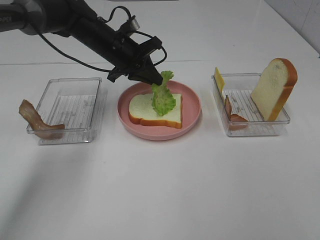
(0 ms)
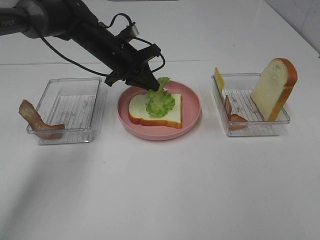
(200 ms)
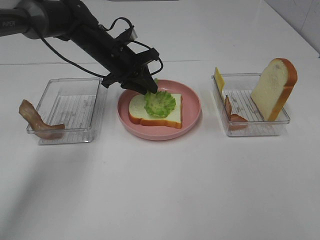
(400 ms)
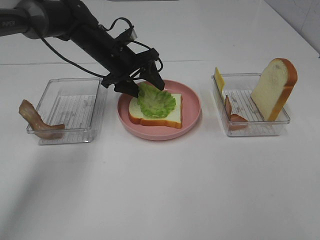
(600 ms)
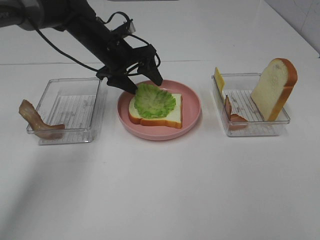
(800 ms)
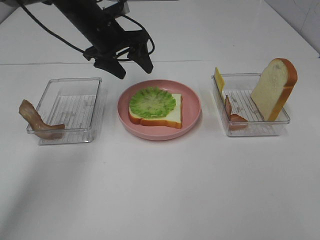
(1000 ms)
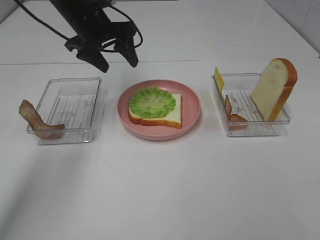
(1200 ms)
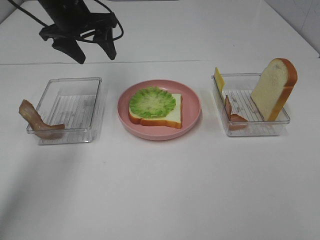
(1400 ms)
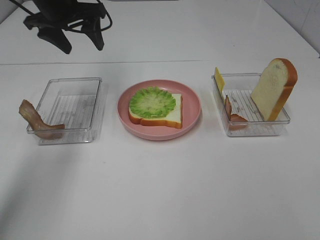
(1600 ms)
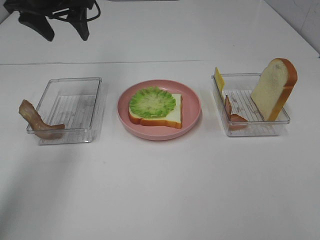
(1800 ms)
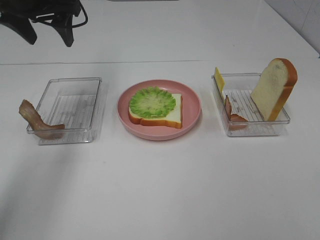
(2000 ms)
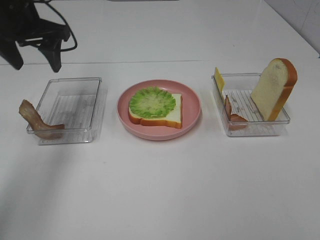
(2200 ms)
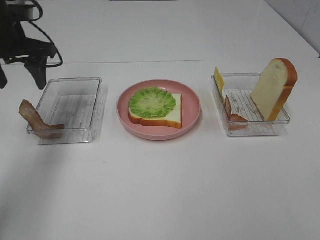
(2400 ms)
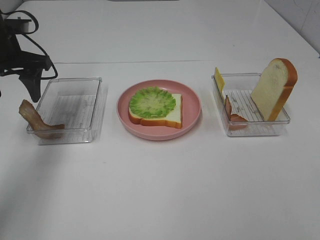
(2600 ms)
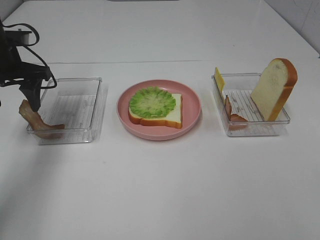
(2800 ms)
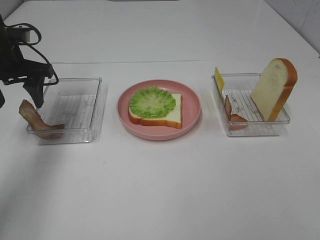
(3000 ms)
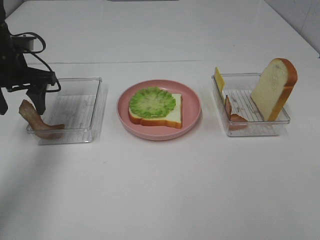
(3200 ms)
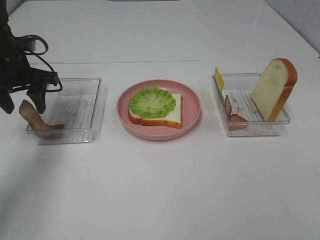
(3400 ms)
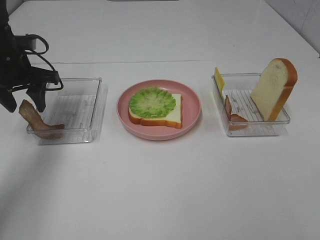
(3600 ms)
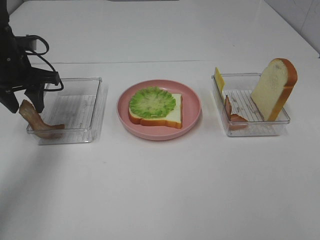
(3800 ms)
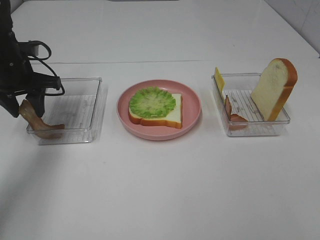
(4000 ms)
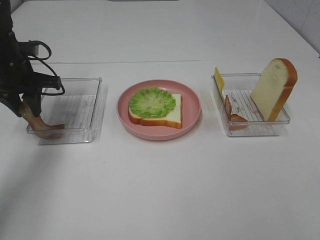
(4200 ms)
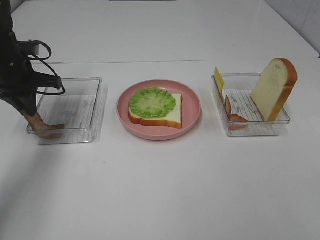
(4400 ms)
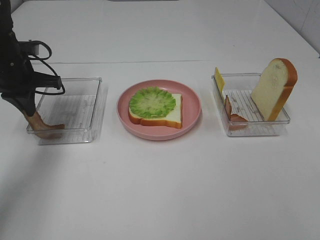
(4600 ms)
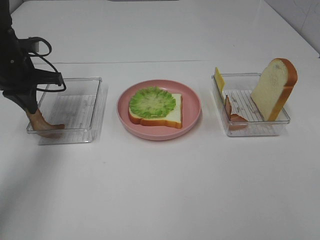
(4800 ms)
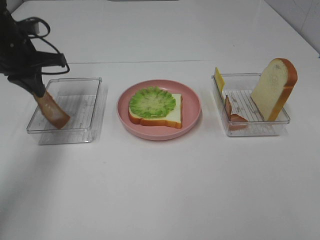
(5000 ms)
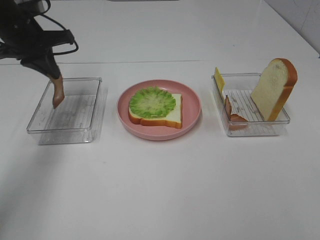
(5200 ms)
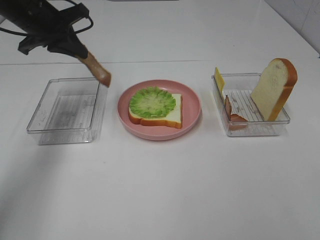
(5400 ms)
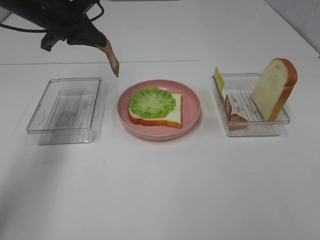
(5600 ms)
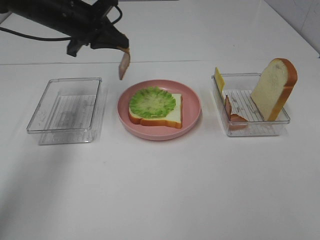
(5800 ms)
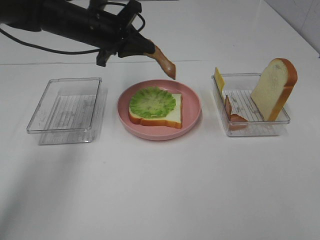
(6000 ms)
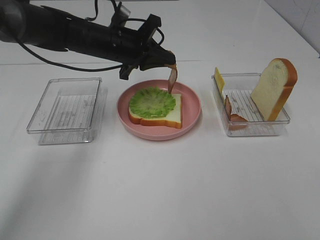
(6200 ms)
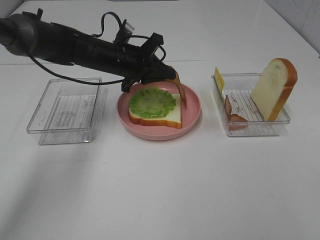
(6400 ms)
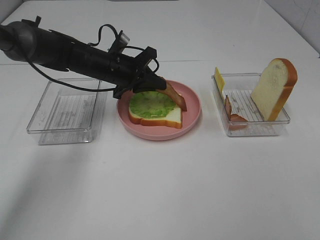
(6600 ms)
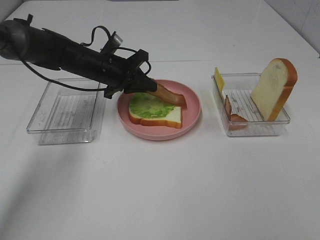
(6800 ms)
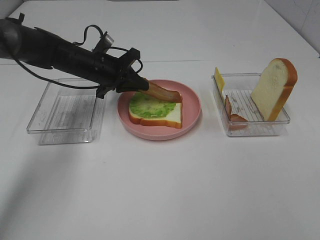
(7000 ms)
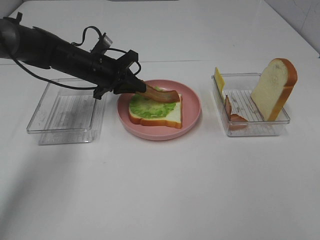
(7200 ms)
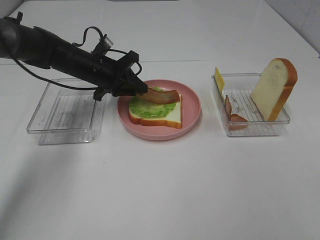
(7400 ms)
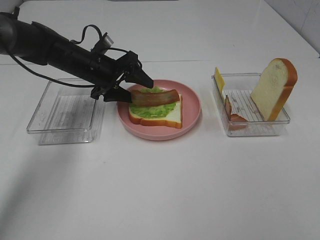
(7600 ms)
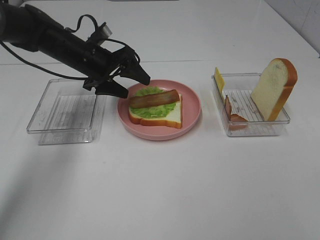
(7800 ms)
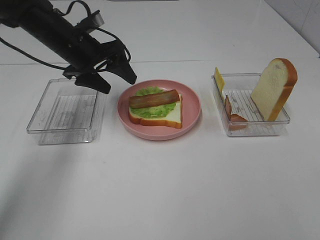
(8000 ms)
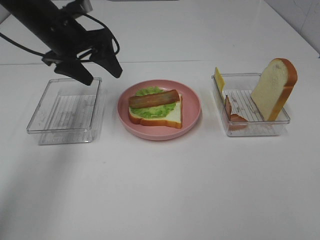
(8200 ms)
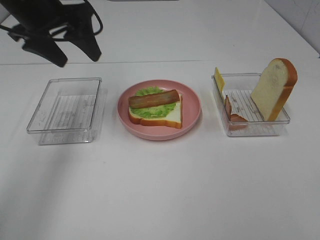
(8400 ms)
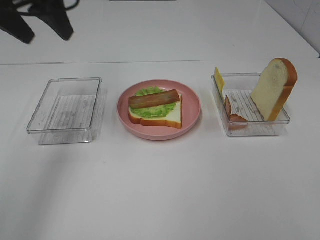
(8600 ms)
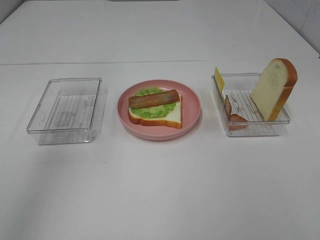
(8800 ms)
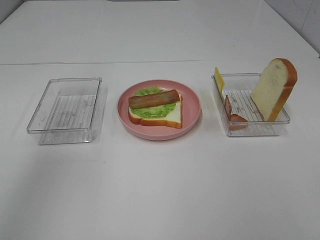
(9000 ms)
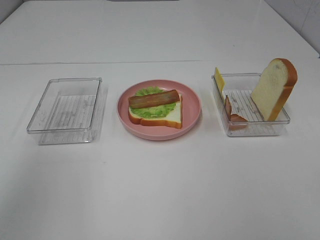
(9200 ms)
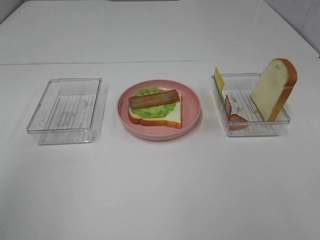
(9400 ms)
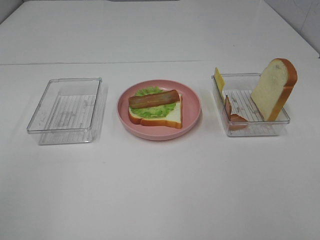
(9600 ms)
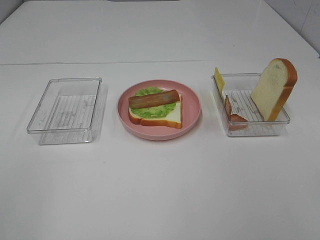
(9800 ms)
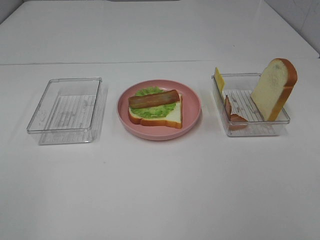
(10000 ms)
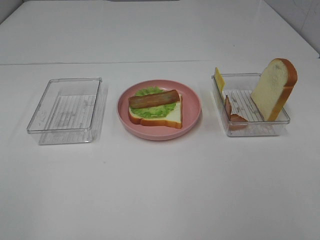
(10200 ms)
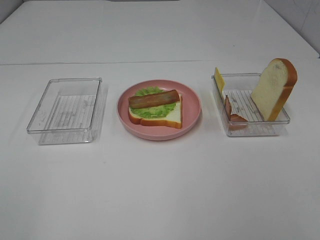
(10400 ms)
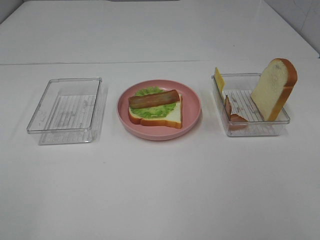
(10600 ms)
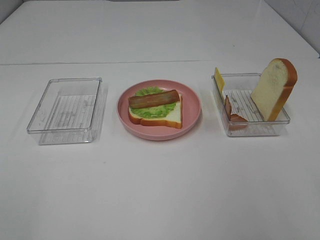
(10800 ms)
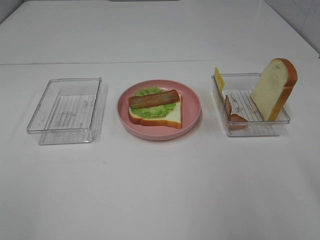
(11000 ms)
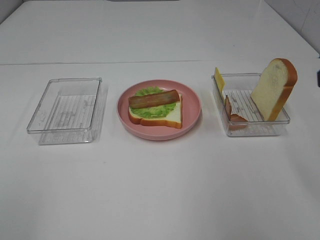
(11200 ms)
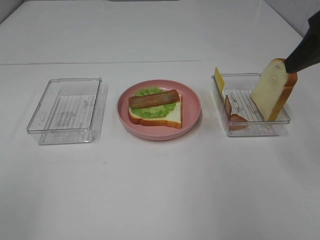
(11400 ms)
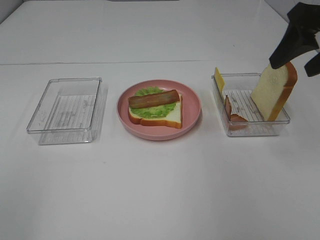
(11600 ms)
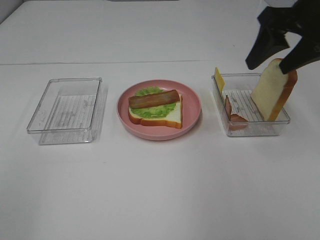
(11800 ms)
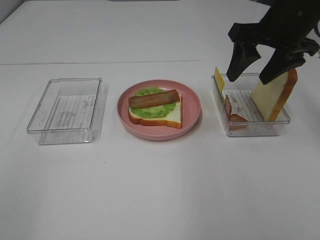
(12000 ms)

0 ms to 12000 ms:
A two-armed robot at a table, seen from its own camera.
Task of the whole recording: Make sandwiches.
Step, 1400 ms to 4400 ms: Left hand:grab the bacon.
Step, 4600 ms to 8000 ms: Left hand:place bacon on lettuce slice.
0 ms to 1600 ms: The left gripper travels upward and to the left by some 15 cm, and opens.
1600 ms to 3000 ms: The left gripper heads to the left, downward and backward, covering roughly 15 cm.
3000 ms to 4400 ms: The left gripper closes its fingers.
4400 ms to 6000 ms: The left gripper moves to the right, about 15 cm.
6000 ms to 7600 ms: The left gripper travels downward by roughly 10 cm, and opens up.
7600 ms to 9000 ms: The left gripper heads upward and backward, covering some 40 cm.
9000 ms to 10400 ms: The left gripper is displaced backward and downward by some 25 cm.
10400 ms to 12000 ms: The right gripper goes roughly 35 cm forward.

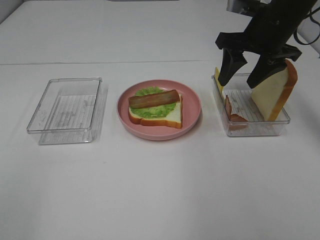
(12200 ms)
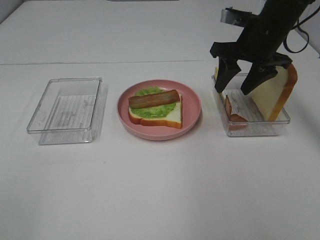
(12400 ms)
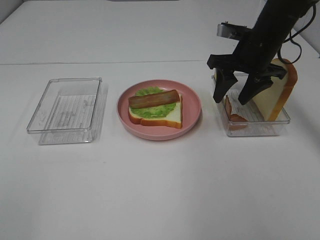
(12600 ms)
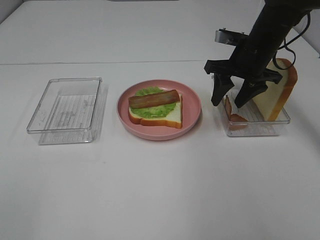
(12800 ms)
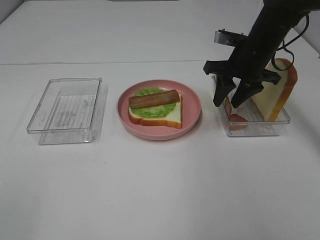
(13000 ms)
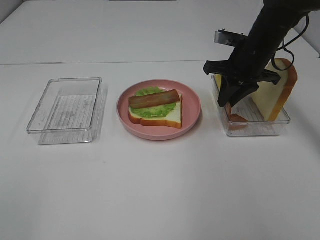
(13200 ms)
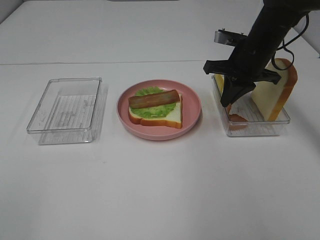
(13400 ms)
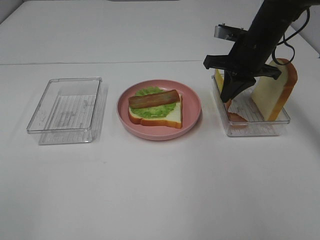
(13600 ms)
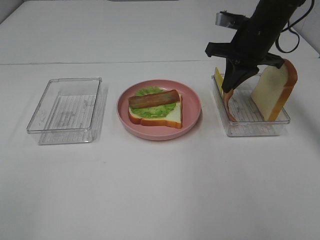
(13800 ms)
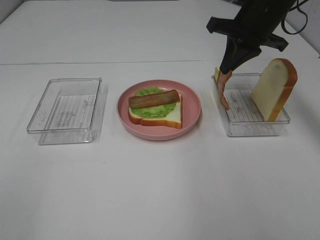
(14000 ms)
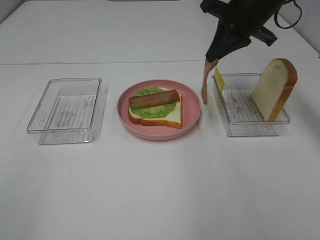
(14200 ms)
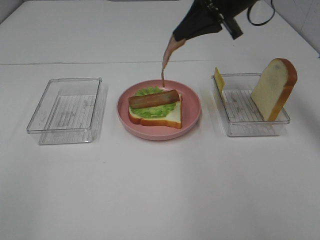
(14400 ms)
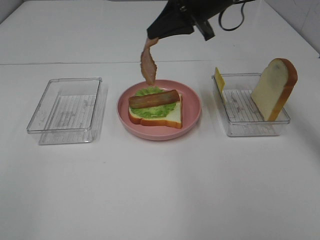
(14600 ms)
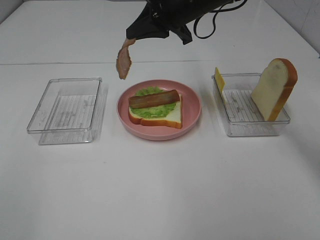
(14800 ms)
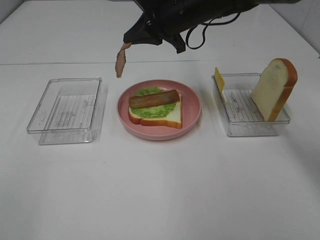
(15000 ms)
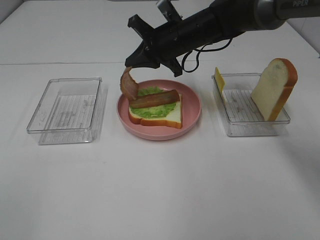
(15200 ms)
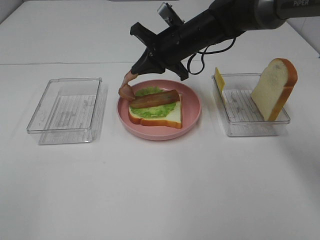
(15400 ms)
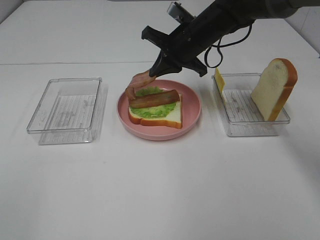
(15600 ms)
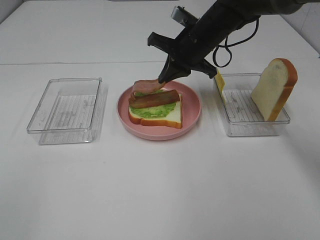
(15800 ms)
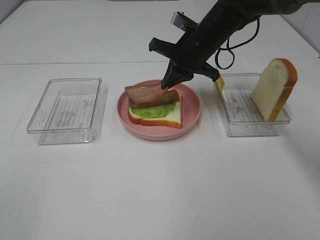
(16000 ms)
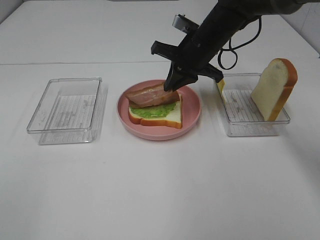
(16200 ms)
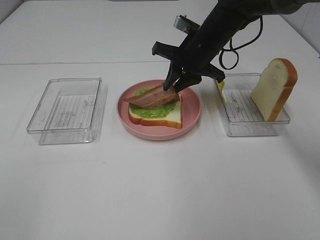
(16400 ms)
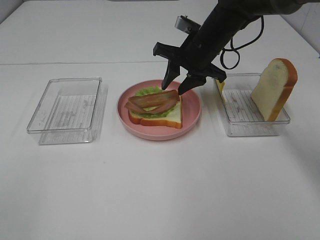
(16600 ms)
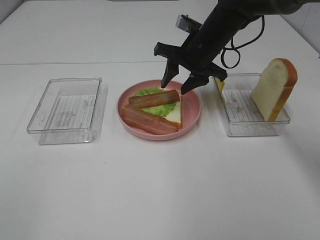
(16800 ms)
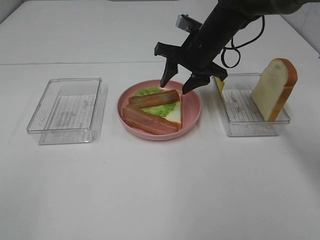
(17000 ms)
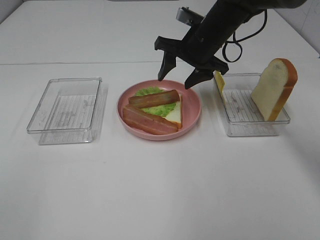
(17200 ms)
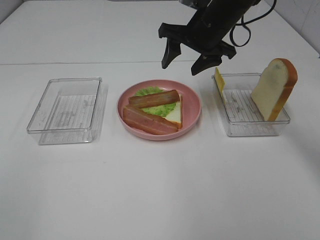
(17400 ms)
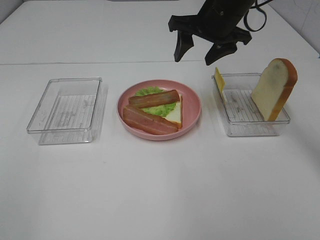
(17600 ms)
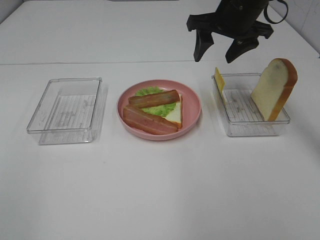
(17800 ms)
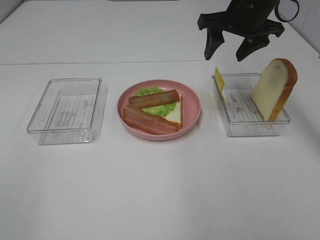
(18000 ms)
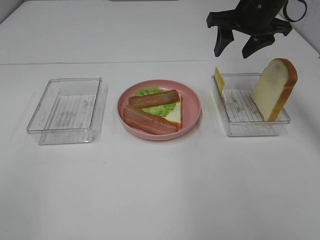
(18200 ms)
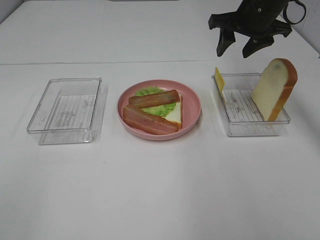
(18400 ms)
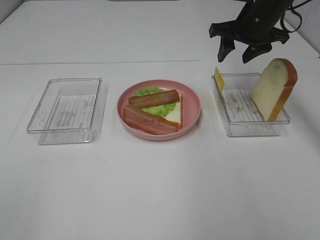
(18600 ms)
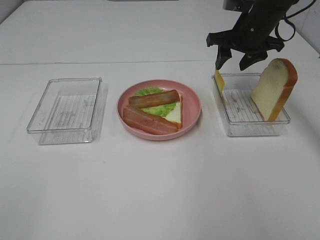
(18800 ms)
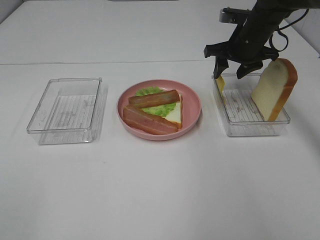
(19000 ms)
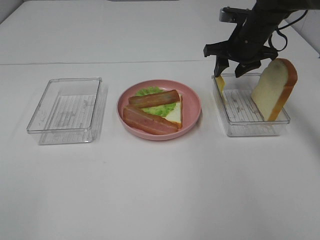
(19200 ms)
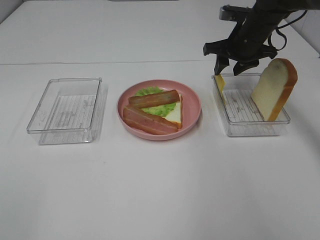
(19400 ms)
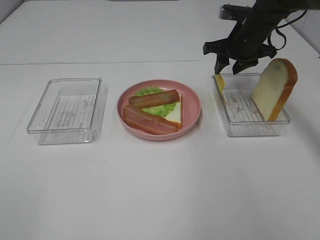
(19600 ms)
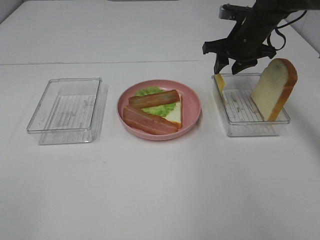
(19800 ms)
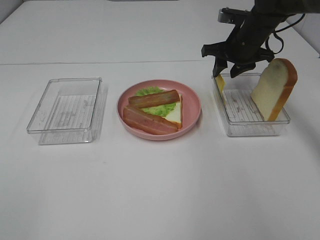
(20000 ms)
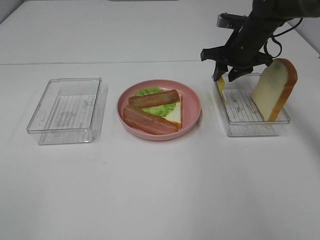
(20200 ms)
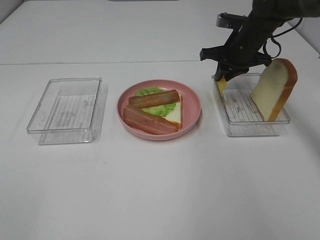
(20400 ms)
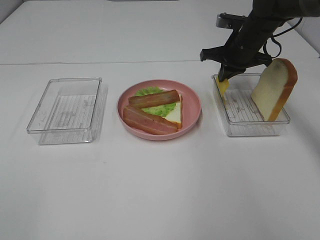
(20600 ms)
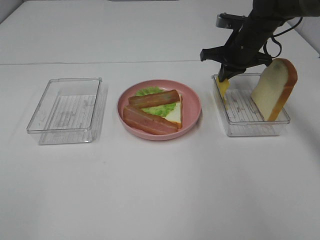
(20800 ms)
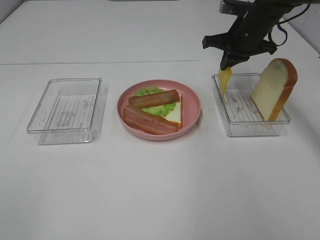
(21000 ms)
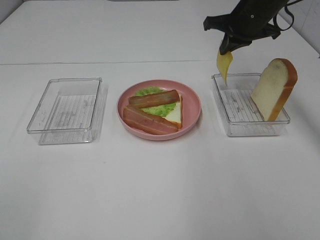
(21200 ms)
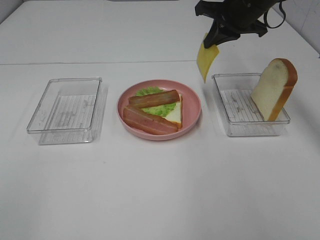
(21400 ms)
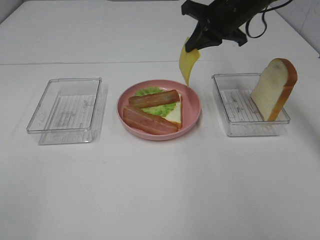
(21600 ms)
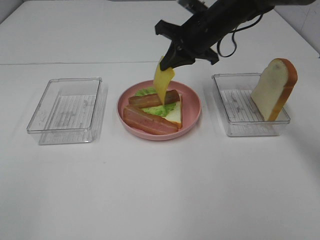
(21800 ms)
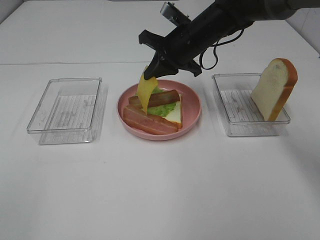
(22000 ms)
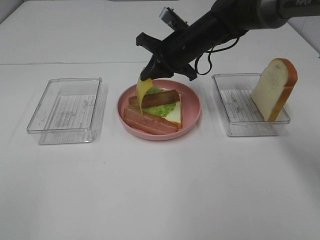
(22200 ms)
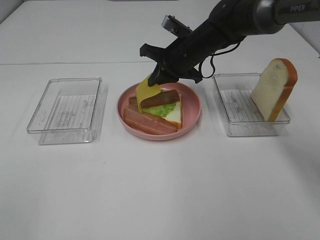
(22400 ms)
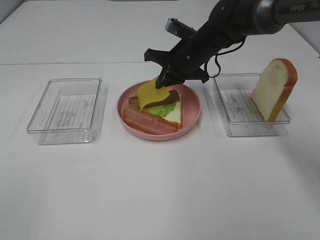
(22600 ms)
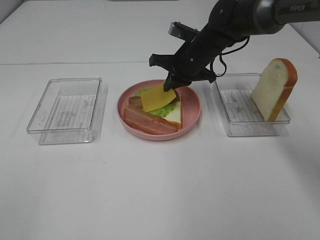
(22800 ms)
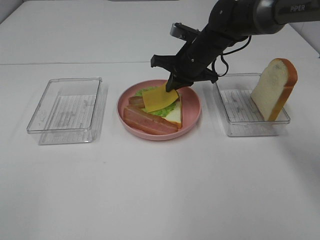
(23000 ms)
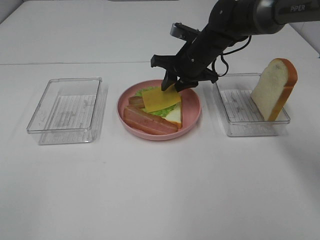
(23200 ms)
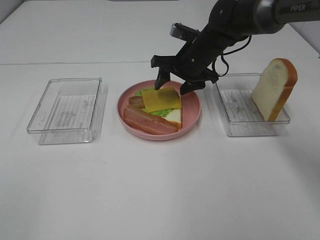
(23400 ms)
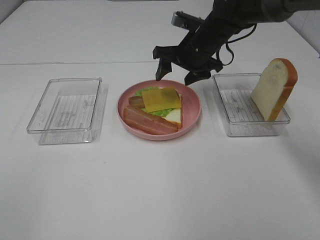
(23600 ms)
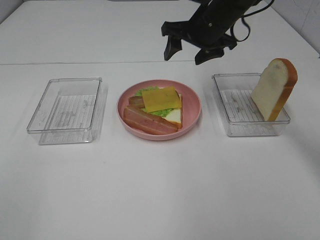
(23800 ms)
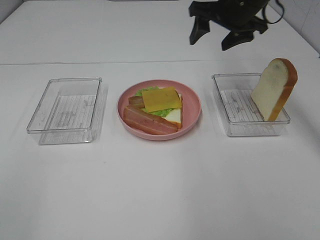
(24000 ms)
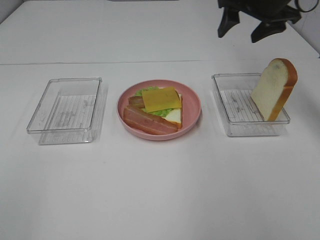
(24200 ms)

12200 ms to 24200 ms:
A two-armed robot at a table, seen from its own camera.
Task of the whole recording: Make sandwiches.
Step, 13800 ms to 17000 ms: Right hand:place bacon on bacon.
Step, 17200 ms to 20800 ms: Right hand:grab the cheese slice.
Step, 21000 ms to 23400 ms: Right hand:place the cheese slice on top of the bacon.
12200 ms to 13800 ms: The right gripper closes.
13800 ms to 15200 ms: The right gripper is displaced to the left by about 15 cm.
15200 ms to 16600 ms: The right gripper opens up.
16600 ms to 18200 ms: The right gripper is displaced to the right and upward by about 10 cm.
18200 ms to 19800 ms: The right gripper heads downward, covering some 10 cm.
19800 ms to 21200 ms: The right gripper moves upward, roughly 5 cm, and closes up.
21200 ms to 22600 ms: The right gripper moves to the left and downward, roughly 15 cm.
22600 ms to 24200 ms: The right gripper goes some 20 cm upward and to the right, and opens its fingers.
